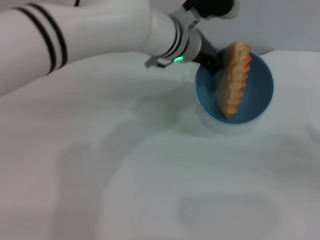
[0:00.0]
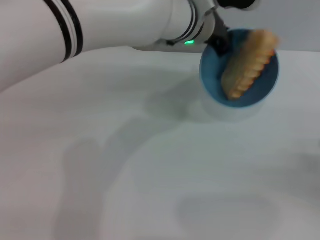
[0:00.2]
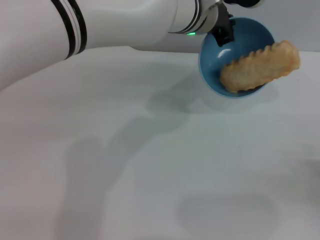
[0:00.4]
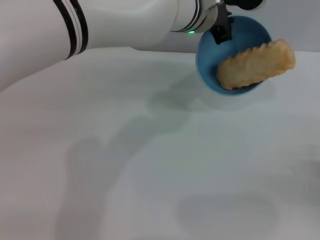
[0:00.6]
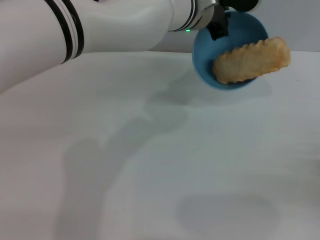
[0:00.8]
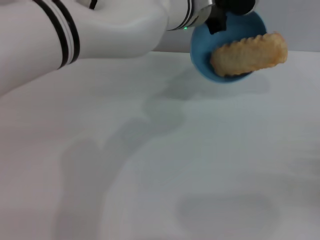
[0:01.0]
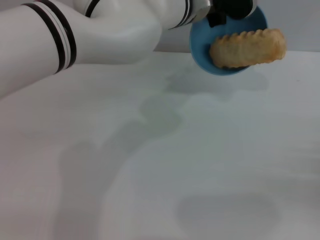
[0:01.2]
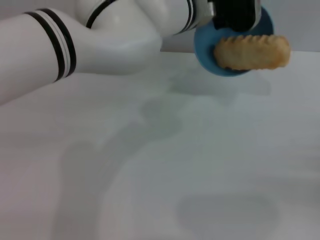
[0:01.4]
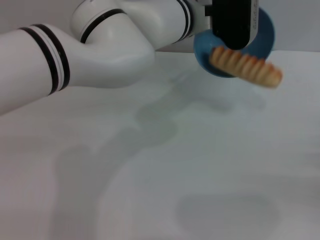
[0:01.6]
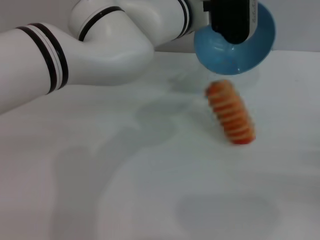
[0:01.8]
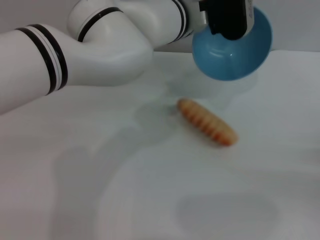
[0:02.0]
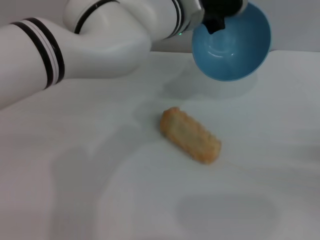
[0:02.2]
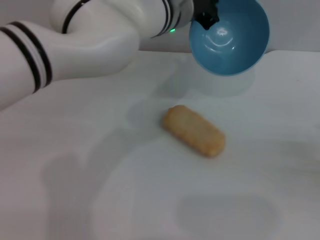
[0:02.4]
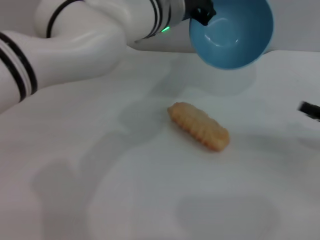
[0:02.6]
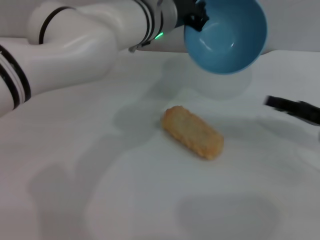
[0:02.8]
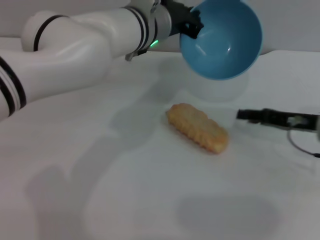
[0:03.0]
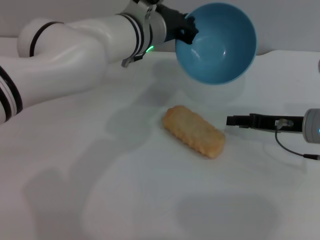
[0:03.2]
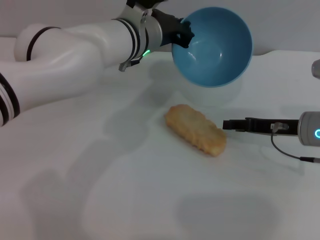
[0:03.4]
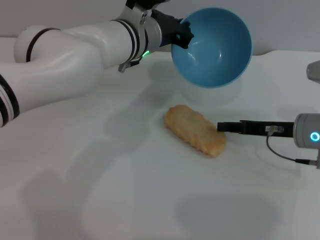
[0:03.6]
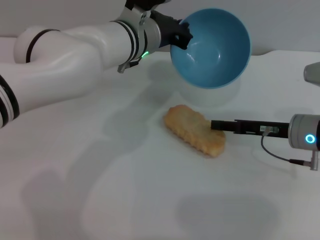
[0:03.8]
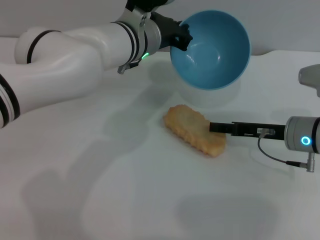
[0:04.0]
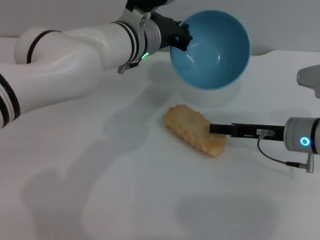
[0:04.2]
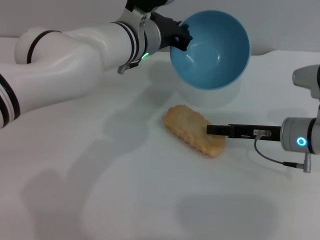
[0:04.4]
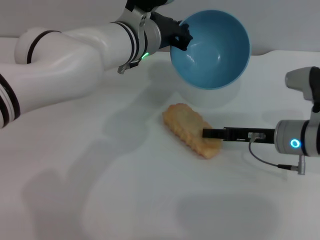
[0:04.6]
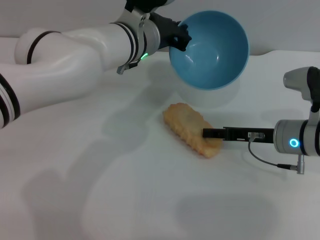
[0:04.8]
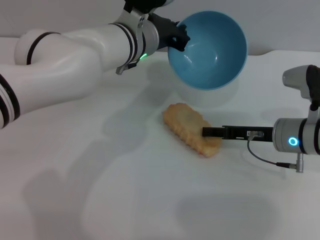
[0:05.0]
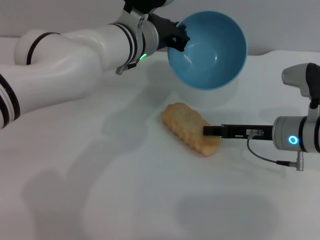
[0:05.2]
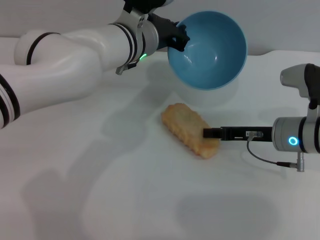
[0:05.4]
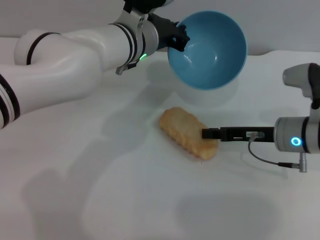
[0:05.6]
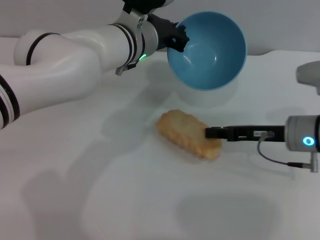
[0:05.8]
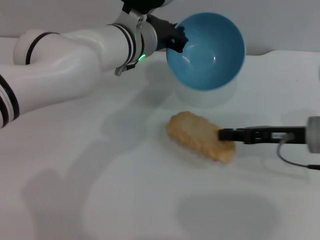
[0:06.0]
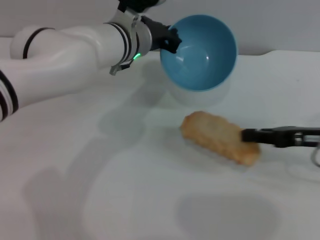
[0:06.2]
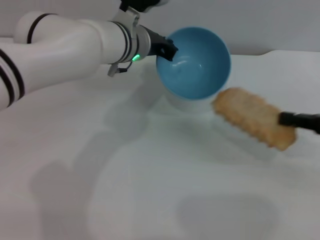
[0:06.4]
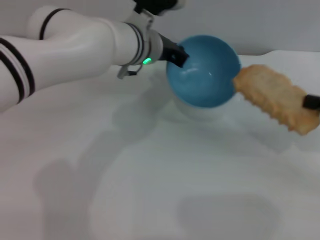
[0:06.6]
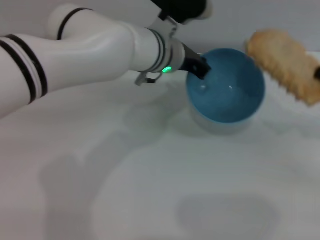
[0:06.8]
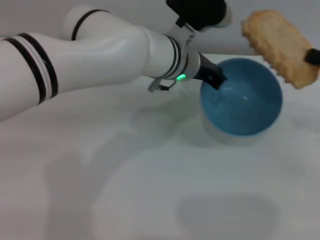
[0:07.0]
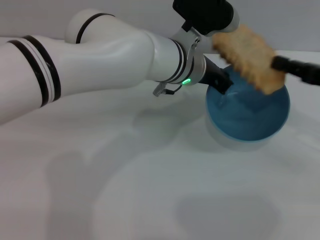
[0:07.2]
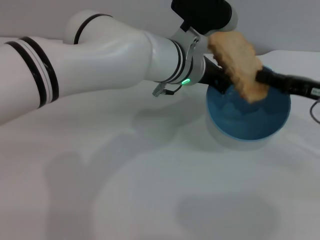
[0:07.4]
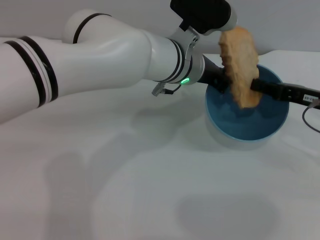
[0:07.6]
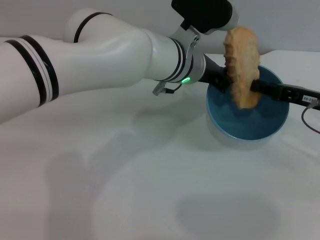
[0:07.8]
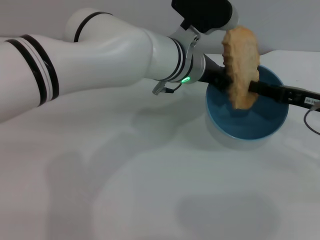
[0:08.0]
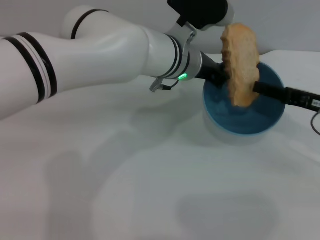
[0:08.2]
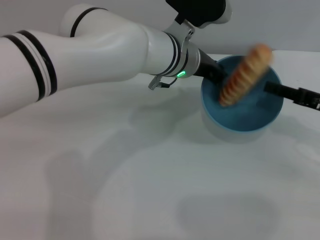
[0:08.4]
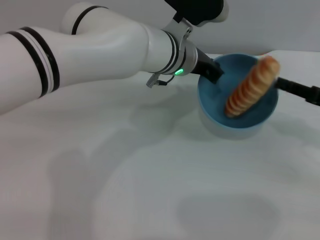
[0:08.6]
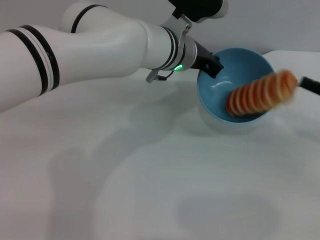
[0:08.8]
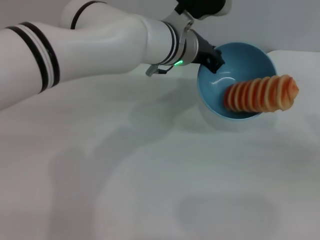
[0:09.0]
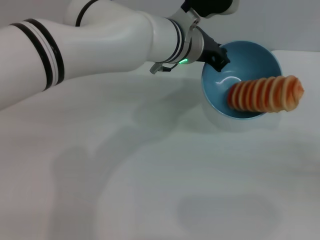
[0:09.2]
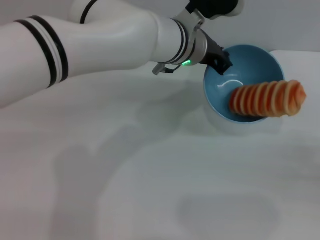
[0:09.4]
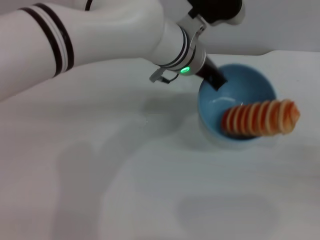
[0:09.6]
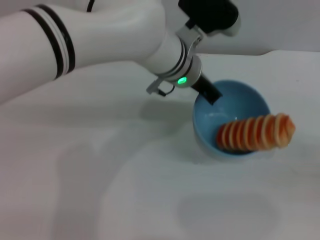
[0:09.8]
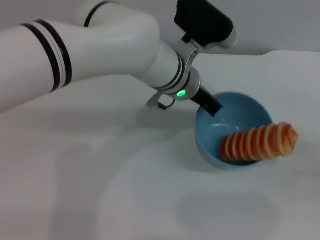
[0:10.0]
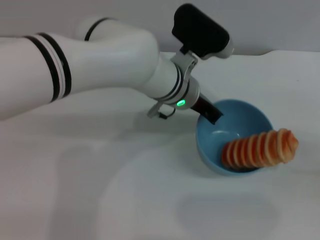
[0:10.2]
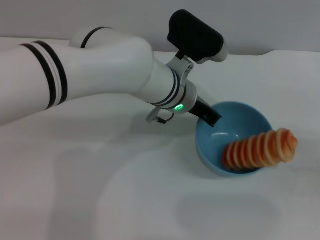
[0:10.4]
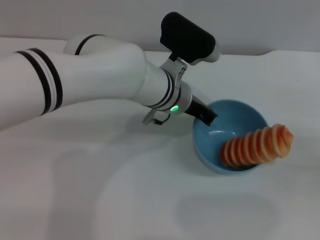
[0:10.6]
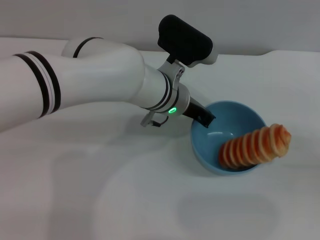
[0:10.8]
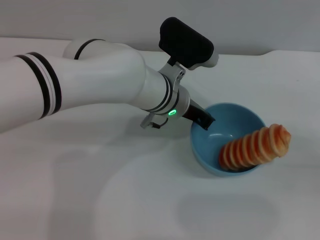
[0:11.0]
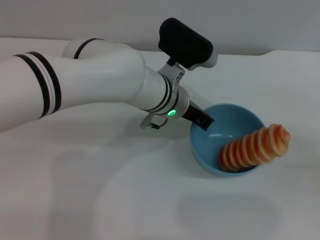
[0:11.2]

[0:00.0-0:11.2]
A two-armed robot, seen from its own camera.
Task of the whole recording: put the bread into the blue bowl and pour it out repeatedly.
Step, 0:00.0 to 0:02.4: Pour the bread out of the bowl.
Step, 0:02.6 to 0:06.2: Pick up the bread with the right gripper.
Step, 0:06.4 to 0:08.8: Place the bread into the bowl.
0:00.0 to 0:01.6: The right gripper shifts by approximately 5 cm.
0:01.6 to 0:03.2: The right gripper heads to the left and forward, covering some 20 cm, while the left gripper travels to the left by about 5 cm.
0:03.2 to 0:04.8: There are only small adjustments of the grippers.
0:04.8 to 0:06.4: The right gripper travels to the right and upward by roughly 15 cm, and closes.
0:06.4 to 0:08.0: The left gripper travels to the right by approximately 5 cm, while the right gripper changes place by roughly 5 cm.
0:08.0 to 0:09.6: The right gripper moves to the right and backward, about 15 cm.
0:09.6 to 0:11.2: The left gripper shifts some 5 cm downward.

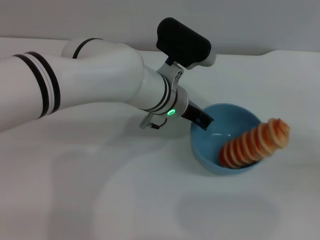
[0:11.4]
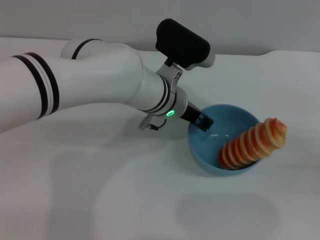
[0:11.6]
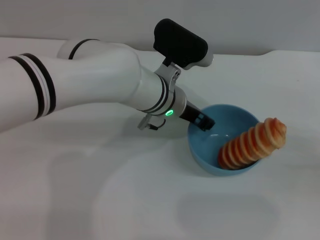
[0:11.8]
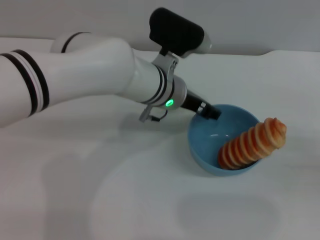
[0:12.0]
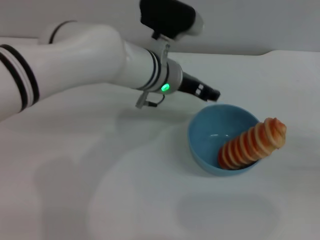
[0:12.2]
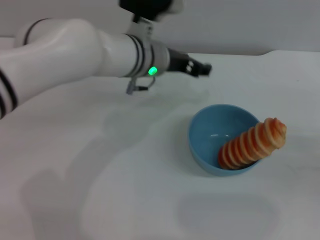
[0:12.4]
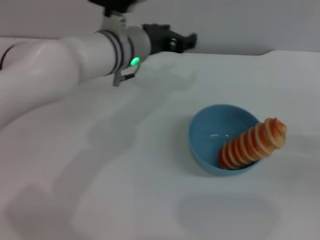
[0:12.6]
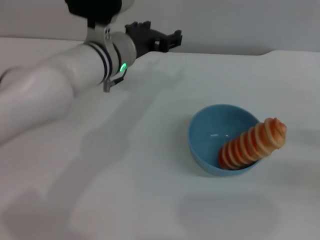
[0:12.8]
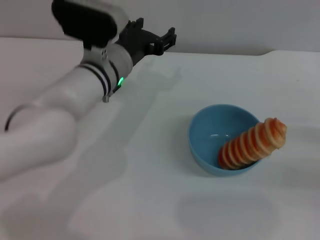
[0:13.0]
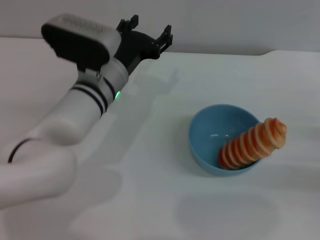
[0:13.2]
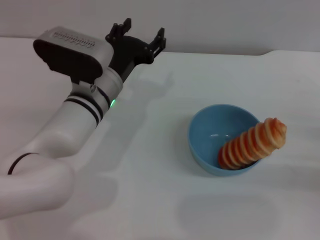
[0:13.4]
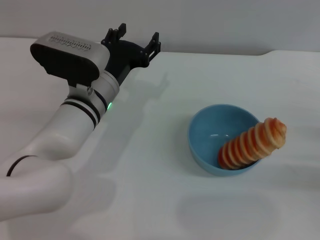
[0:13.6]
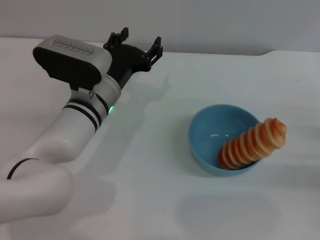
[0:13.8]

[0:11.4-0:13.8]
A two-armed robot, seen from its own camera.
Task of the whole recording: put the bread into the blue bowl and pour it out repeatedly.
0:11.4 to 0:12.6: The left gripper travels to the left by approximately 5 cm, and opens its fingers.
0:12.6 to 0:13.8: The left gripper is displaced downward and backward by some 10 cm.
